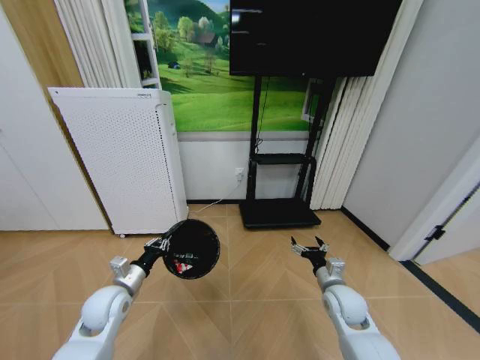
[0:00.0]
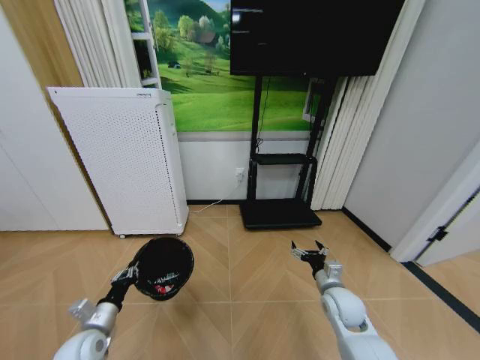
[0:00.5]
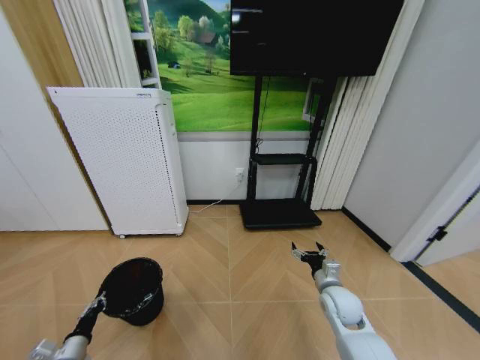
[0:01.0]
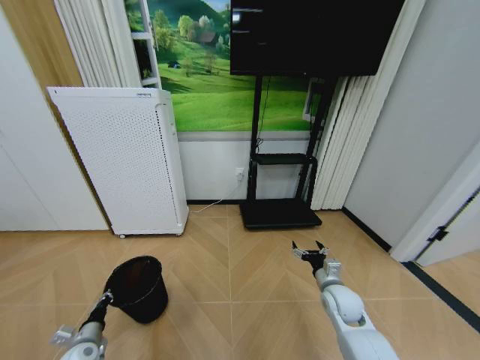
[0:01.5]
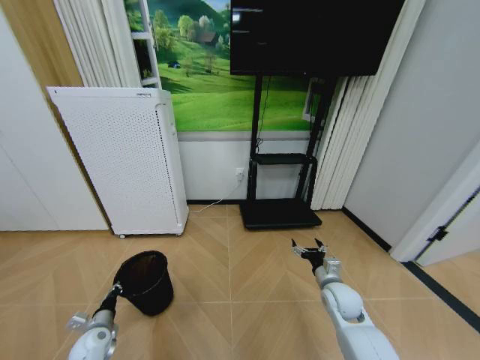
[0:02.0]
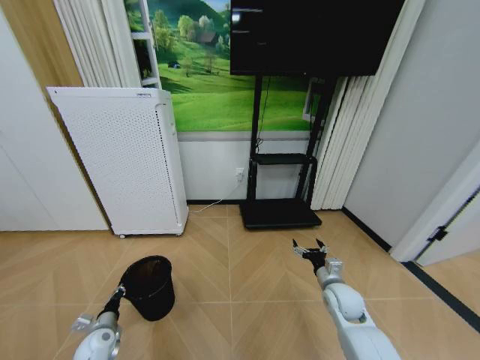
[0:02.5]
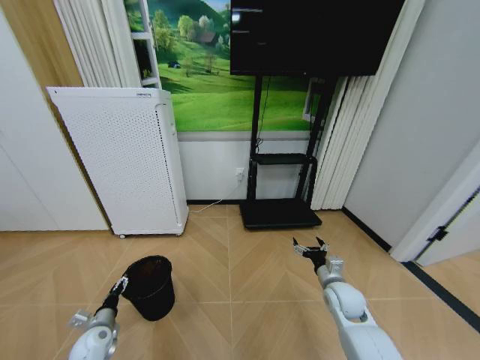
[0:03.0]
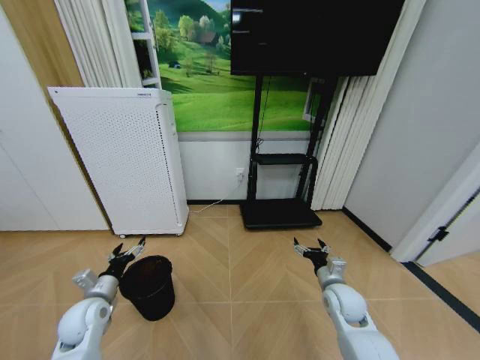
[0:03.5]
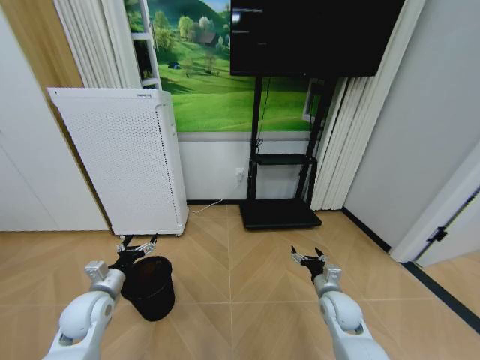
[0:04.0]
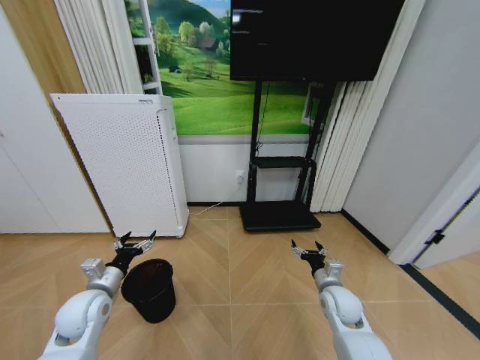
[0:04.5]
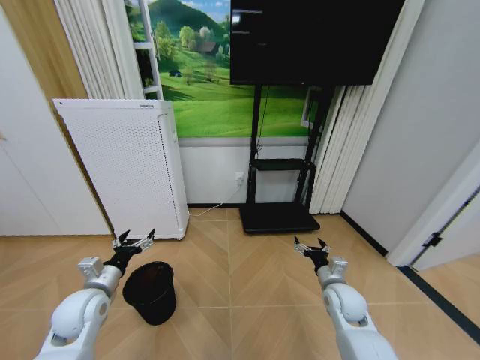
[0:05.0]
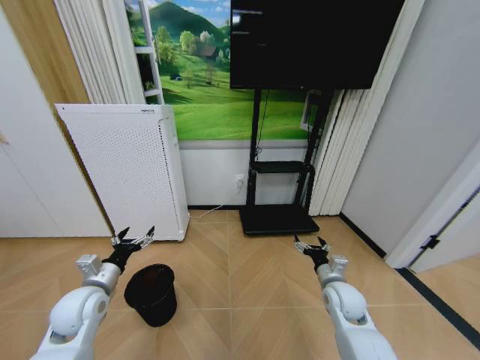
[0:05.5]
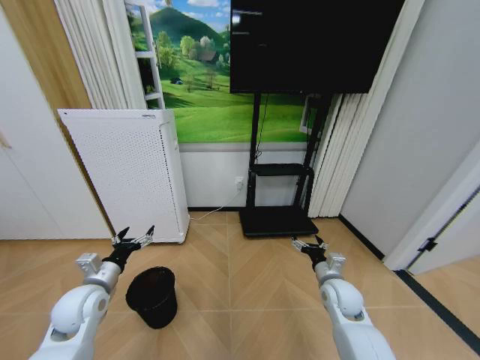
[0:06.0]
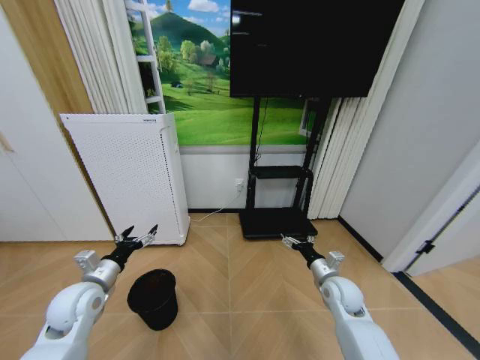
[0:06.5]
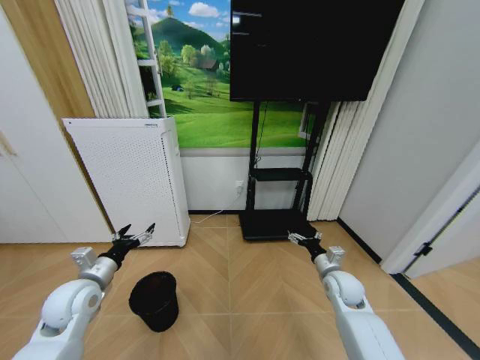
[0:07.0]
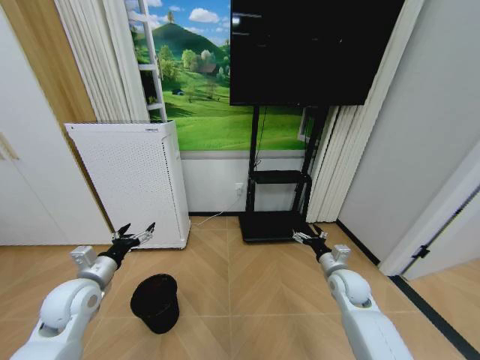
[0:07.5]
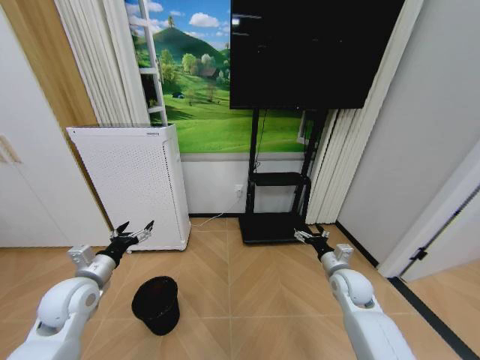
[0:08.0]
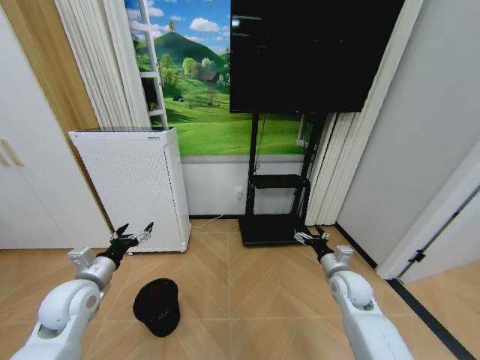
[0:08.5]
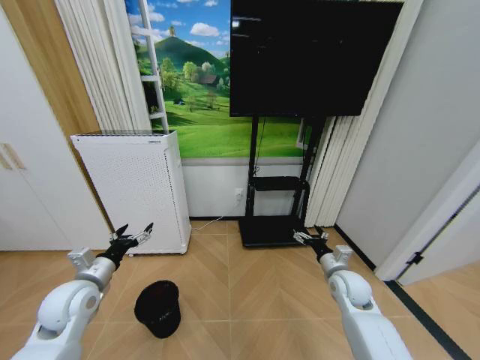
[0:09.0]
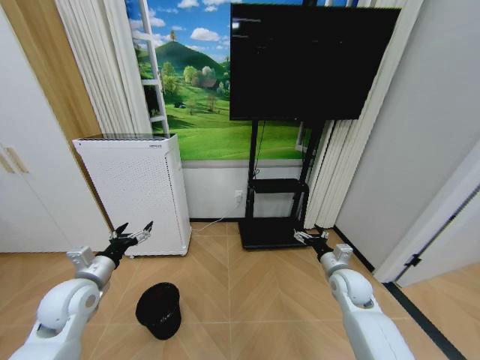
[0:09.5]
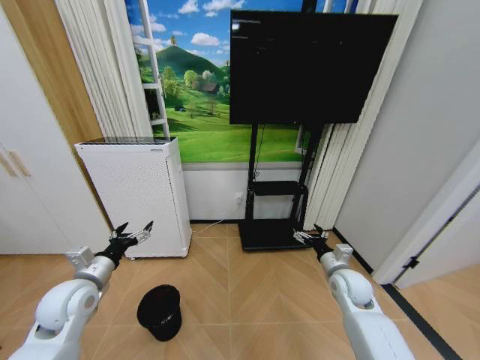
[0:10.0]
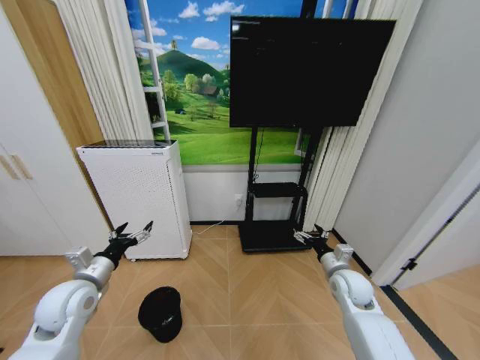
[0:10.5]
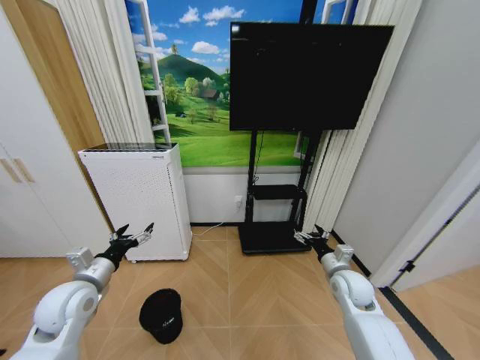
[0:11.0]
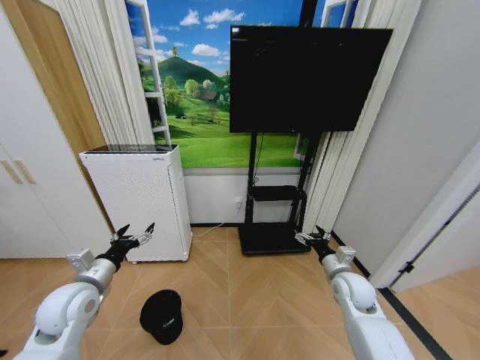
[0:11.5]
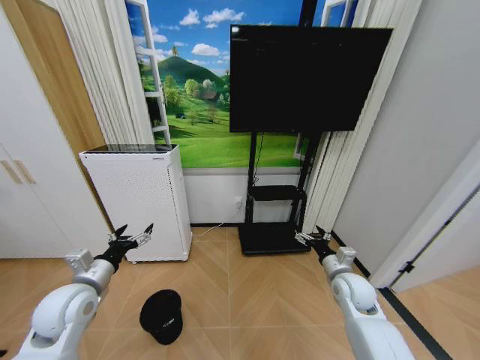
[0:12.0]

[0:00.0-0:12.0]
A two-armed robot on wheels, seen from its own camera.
Task of the whole recording: Pick up the trash bin and place the garbage on the floor into it.
0:00.0 to 0:02.0: The left gripper moves downward and to the left, roughly 20 cm.
0:02.0 to 0:04.0: The left gripper moves upward, roughly 15 cm, and opens its fingers.
0:04.0 to 0:06.0: The grippers move only a little.
0:08.0 to 0:10.0: Both grippers stay about where they are.
0:10.0 to 0:12.0: The grippers make only small movements.

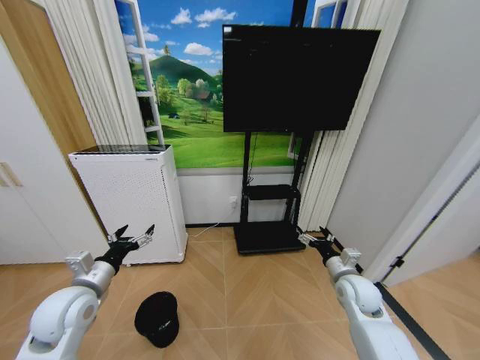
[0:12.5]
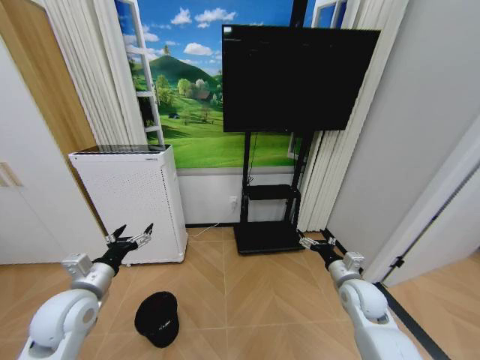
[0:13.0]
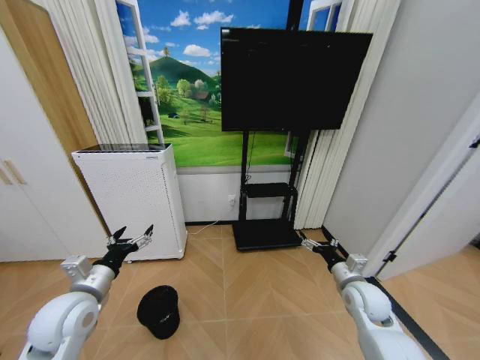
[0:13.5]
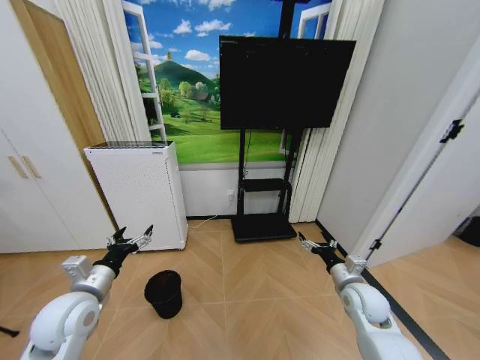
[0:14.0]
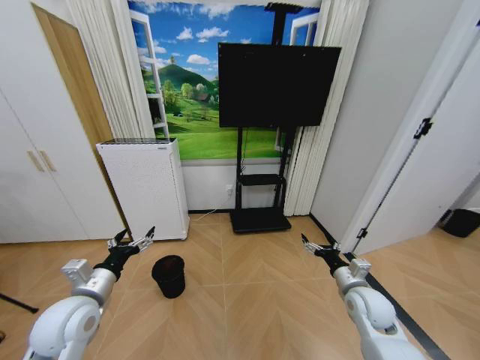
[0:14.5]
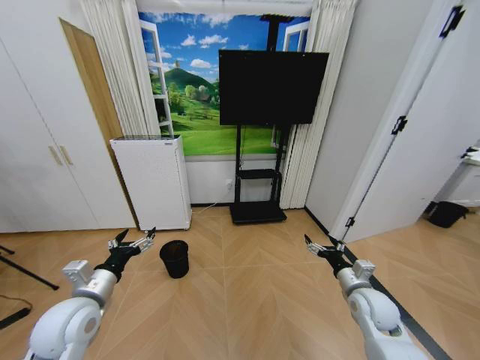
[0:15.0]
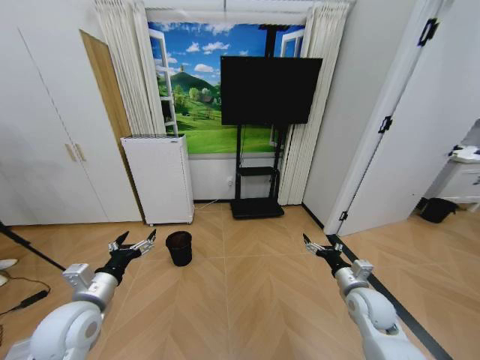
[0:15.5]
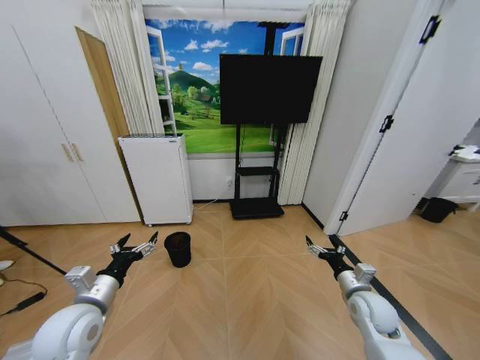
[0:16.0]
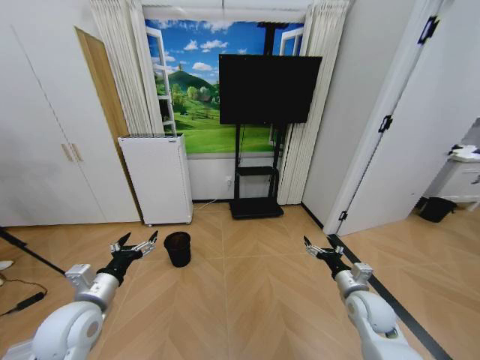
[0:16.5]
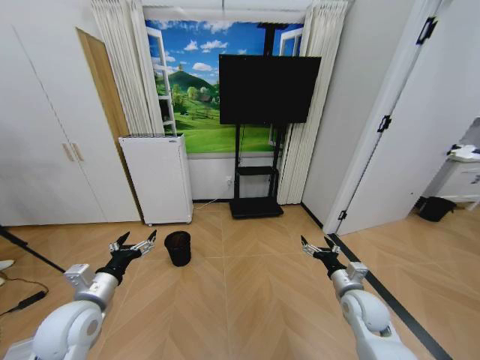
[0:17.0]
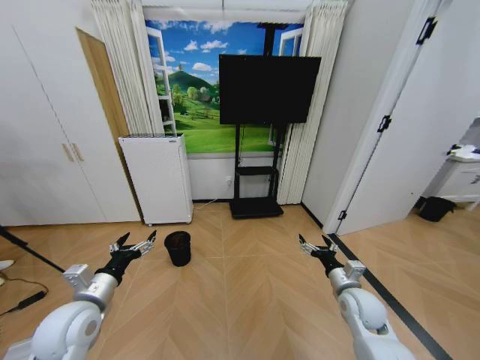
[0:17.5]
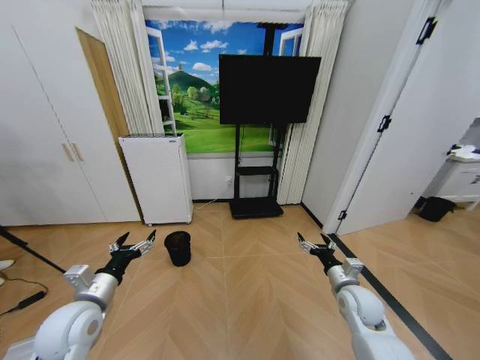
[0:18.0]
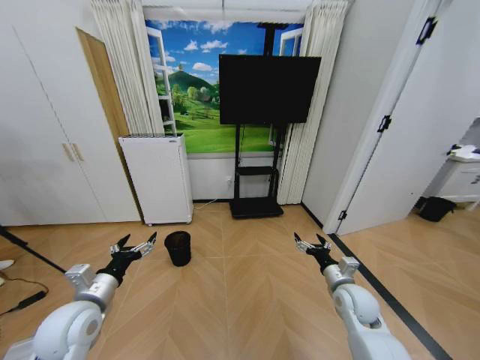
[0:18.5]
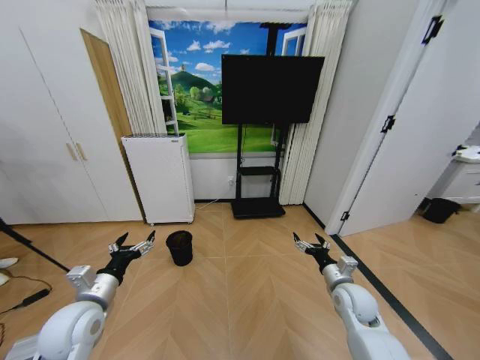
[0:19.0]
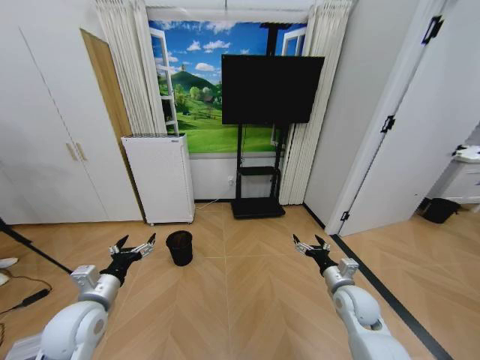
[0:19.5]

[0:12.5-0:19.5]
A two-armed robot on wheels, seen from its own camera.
Task of the whole recording: Pick up the trash bin and place the garbage on the floor into it.
0:16.0 to 0:19.5: There are only small adjustments of the grippers.

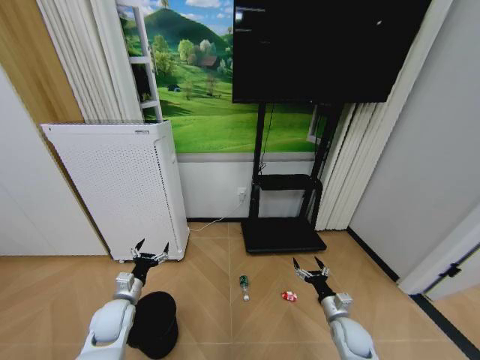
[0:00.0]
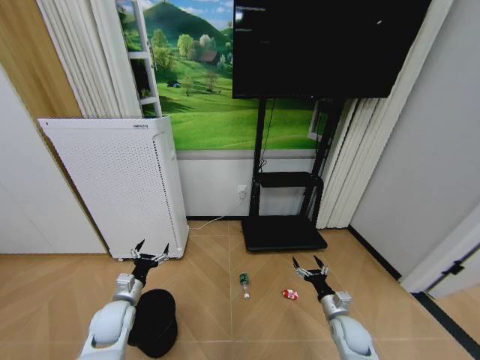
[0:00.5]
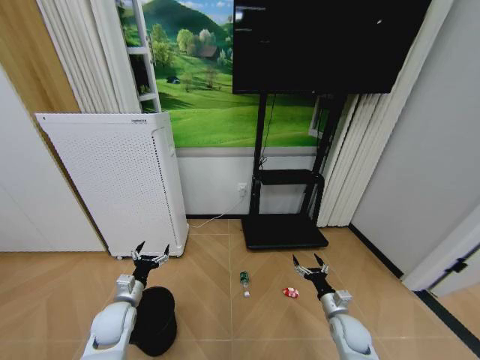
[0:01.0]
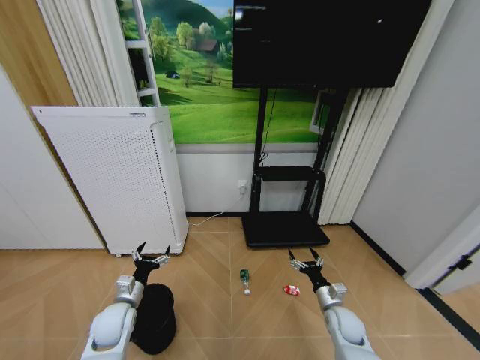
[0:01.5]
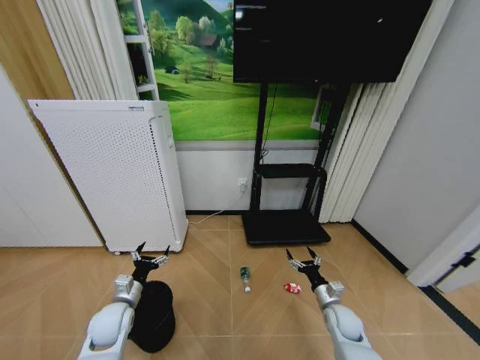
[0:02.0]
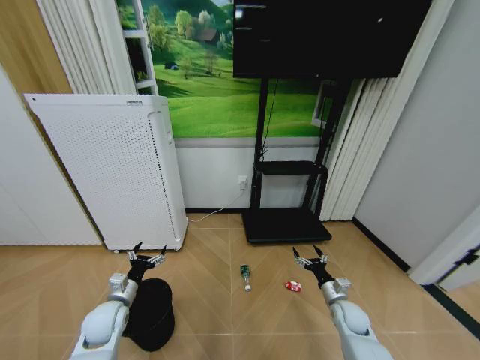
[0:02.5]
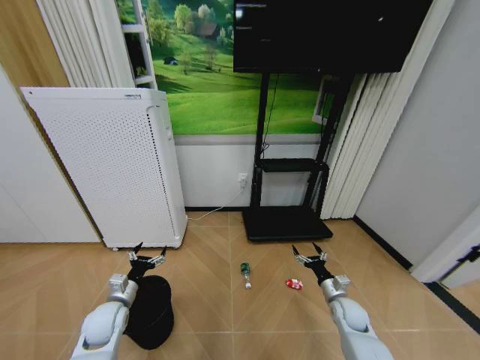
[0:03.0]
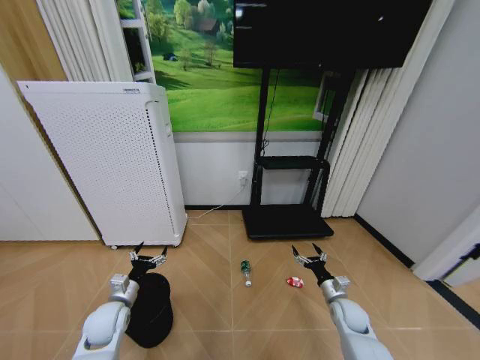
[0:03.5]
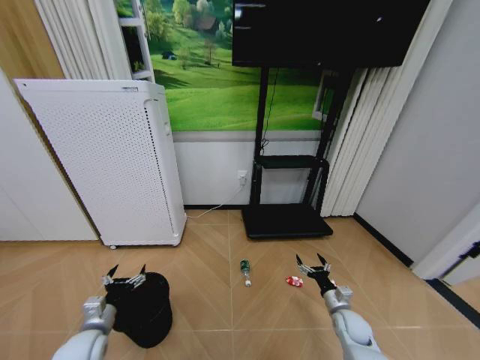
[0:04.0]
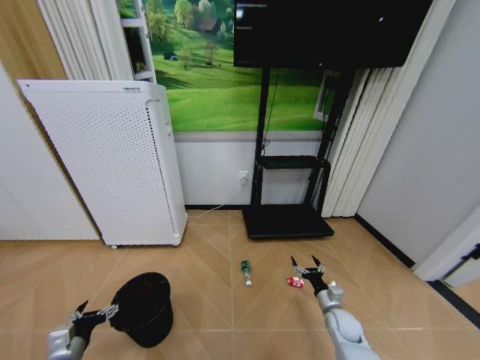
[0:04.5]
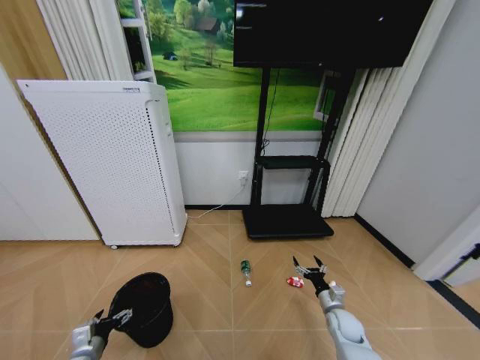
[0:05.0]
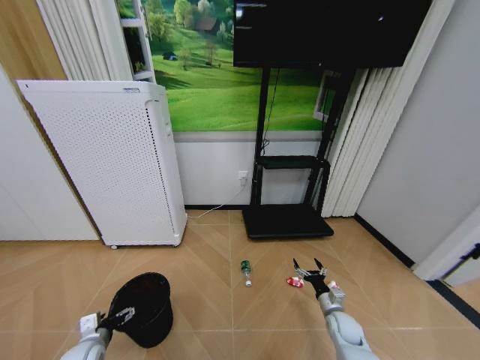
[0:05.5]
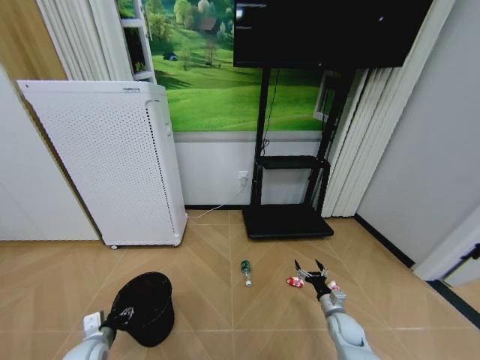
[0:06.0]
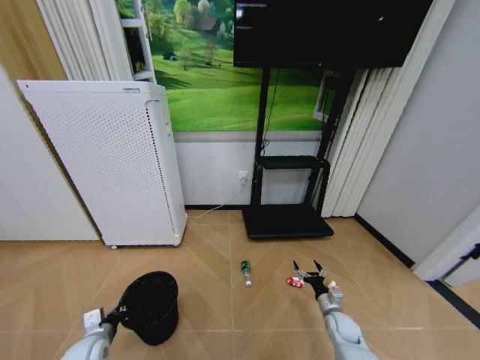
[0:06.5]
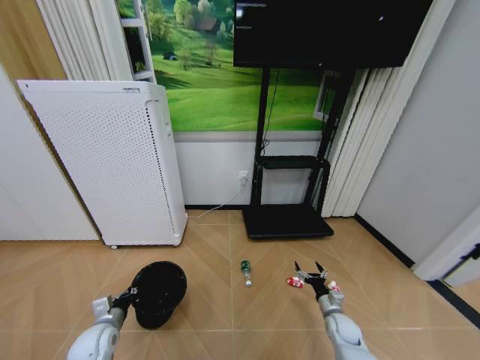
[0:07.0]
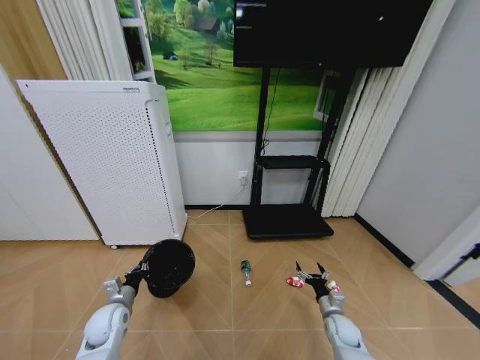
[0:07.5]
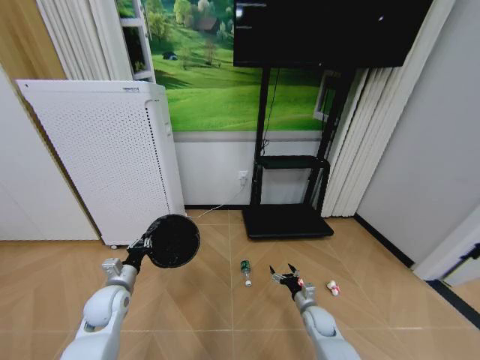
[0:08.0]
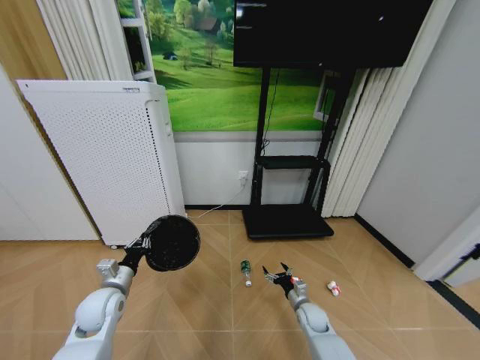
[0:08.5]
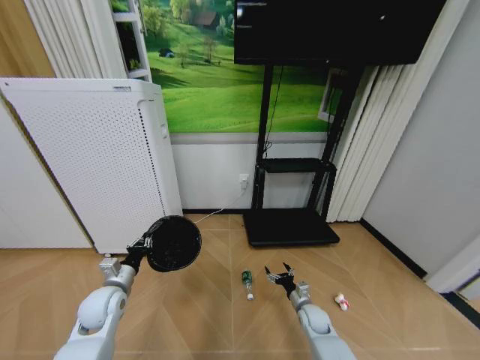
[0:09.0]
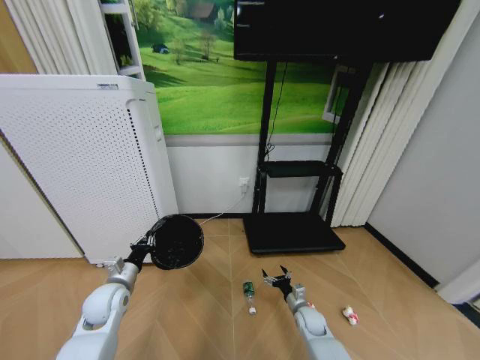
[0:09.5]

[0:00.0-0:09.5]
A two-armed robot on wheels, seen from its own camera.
Task of the whole recording: Pick up the trash bin and place the garbage on the floor into it.
0:00.0 to 0:02.0: There are only small adjustments of the grippers.
0:02.0 to 0:04.0: The left gripper travels backward by roughly 5 cm.
0:05.5 to 0:07.5: The left gripper goes some 10 cm forward, and closes.
0:07.5 to 0:09.5: The right gripper is displaced to the left by about 10 cm, while the left gripper travels upward by some 5 cm.
